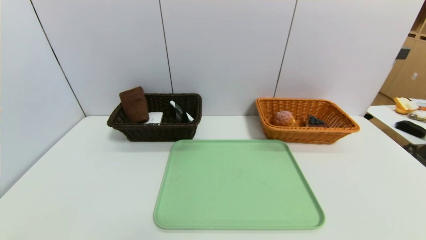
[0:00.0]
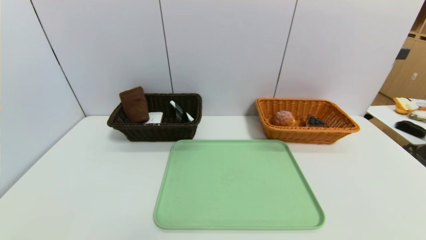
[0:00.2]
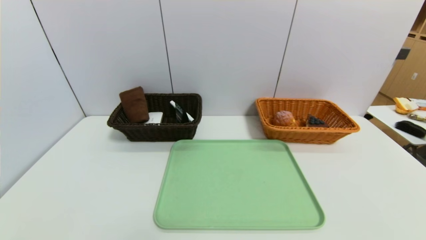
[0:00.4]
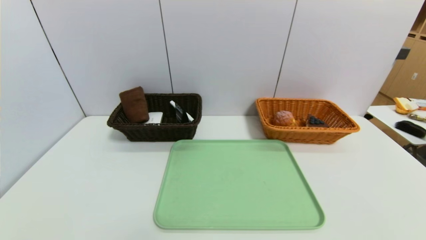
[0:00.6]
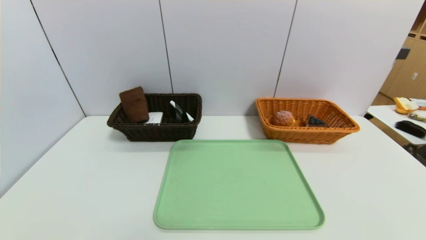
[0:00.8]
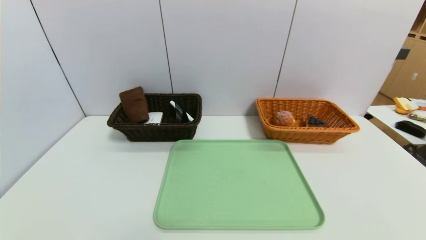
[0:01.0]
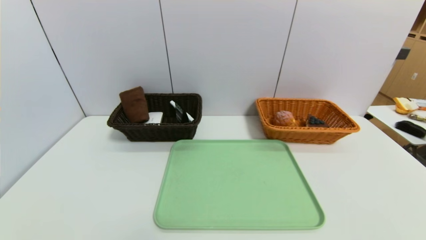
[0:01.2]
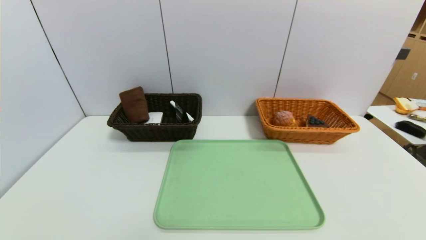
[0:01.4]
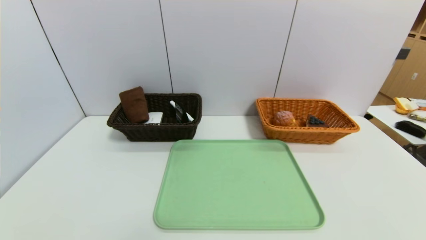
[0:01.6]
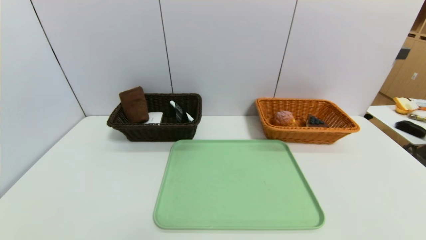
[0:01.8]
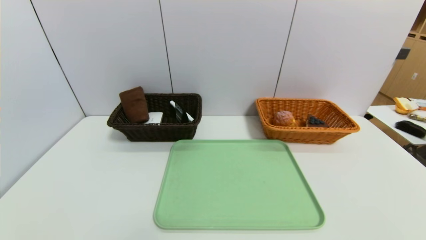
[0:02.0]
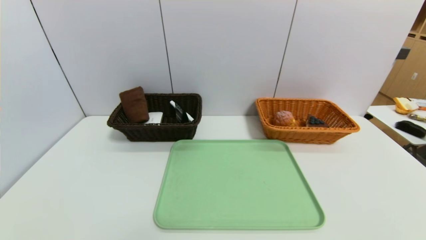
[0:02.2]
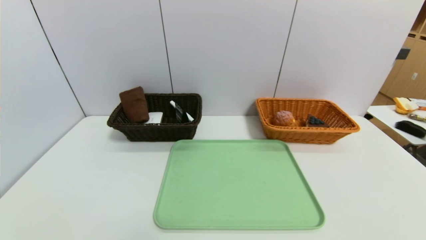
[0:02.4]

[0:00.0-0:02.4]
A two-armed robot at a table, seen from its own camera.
Task of the whole recording: place the food in the right basket with the right gripper, and place the non food items in the left basket with the left gripper.
0:01.2 to 0:02.4: The two grippers keep their place.
